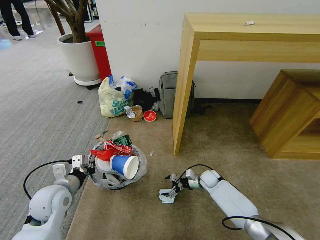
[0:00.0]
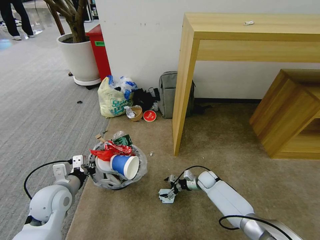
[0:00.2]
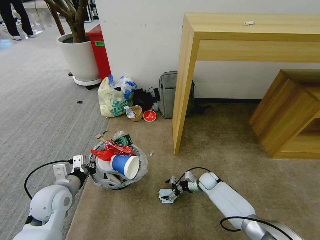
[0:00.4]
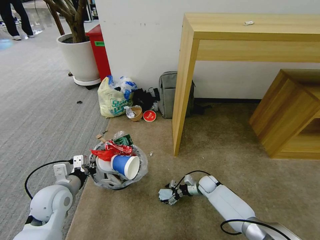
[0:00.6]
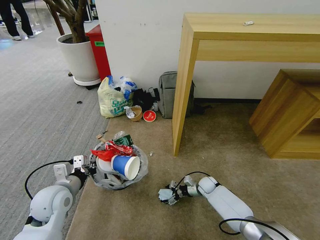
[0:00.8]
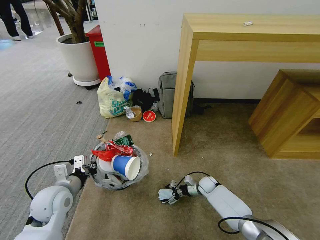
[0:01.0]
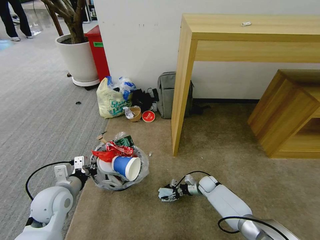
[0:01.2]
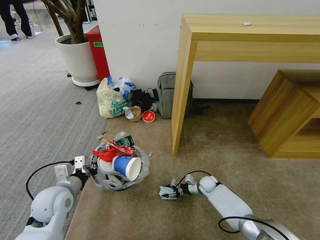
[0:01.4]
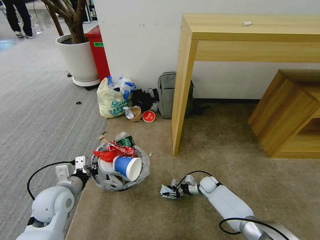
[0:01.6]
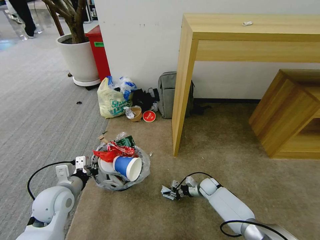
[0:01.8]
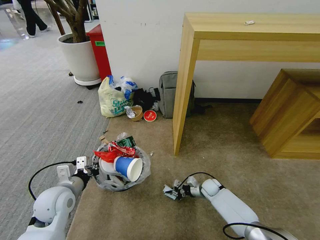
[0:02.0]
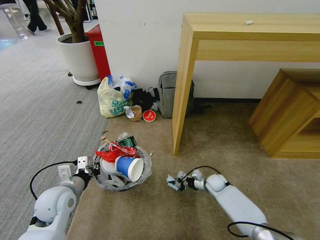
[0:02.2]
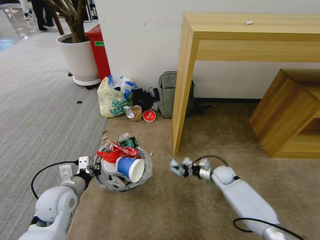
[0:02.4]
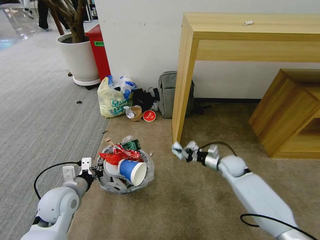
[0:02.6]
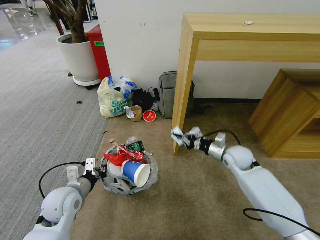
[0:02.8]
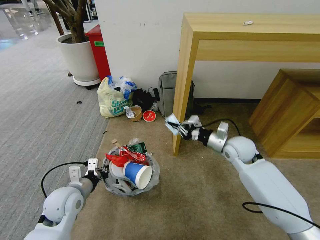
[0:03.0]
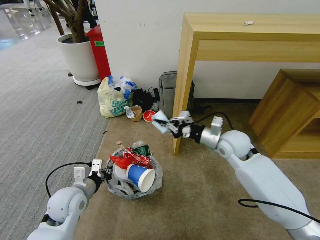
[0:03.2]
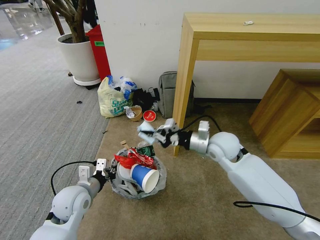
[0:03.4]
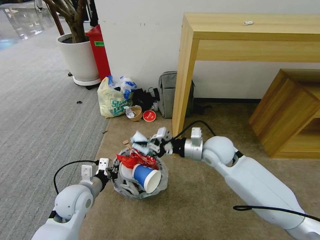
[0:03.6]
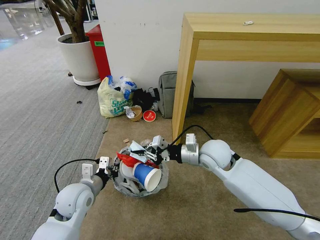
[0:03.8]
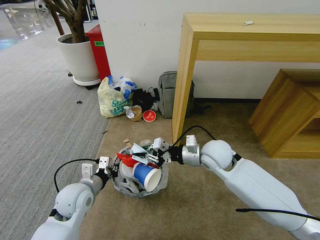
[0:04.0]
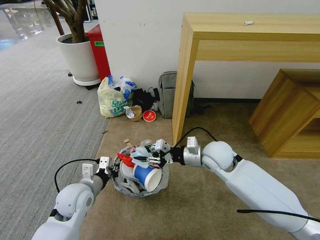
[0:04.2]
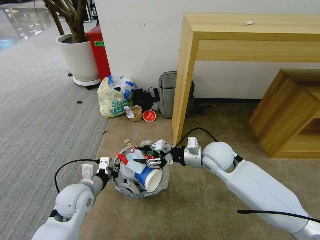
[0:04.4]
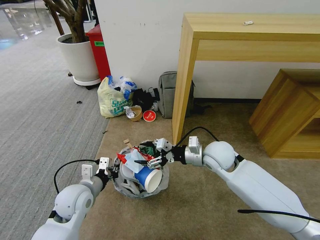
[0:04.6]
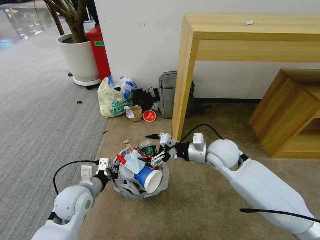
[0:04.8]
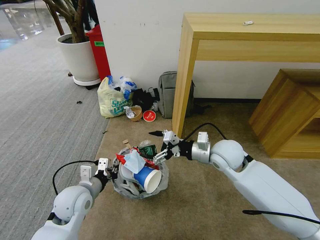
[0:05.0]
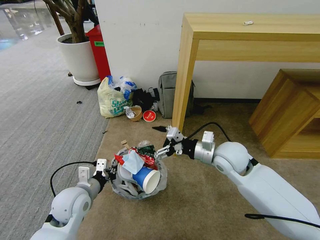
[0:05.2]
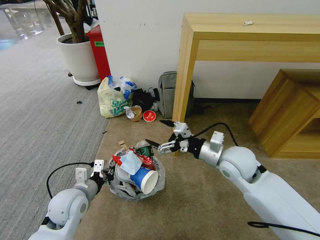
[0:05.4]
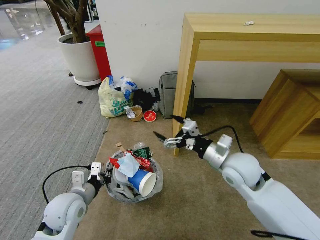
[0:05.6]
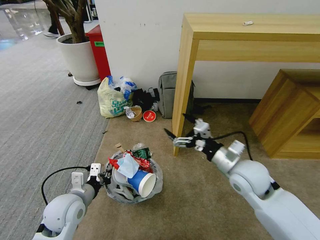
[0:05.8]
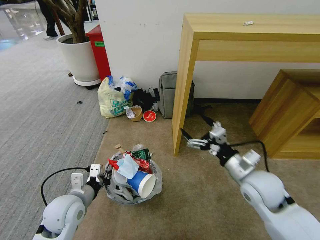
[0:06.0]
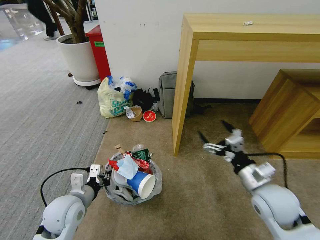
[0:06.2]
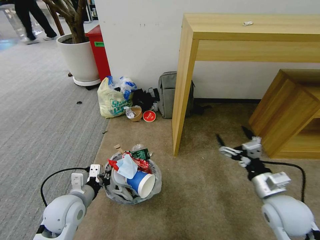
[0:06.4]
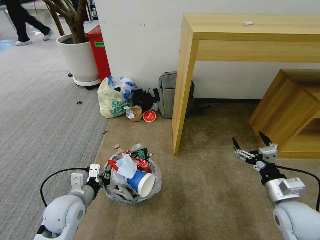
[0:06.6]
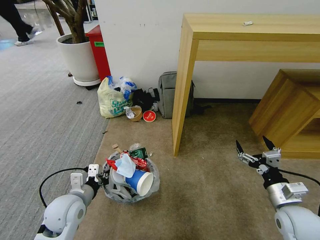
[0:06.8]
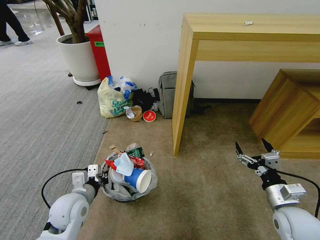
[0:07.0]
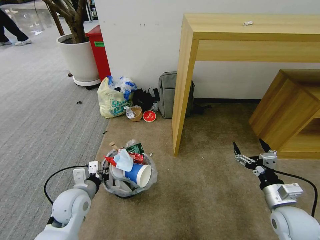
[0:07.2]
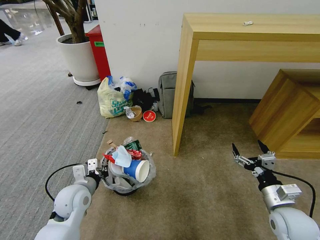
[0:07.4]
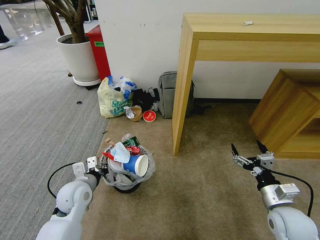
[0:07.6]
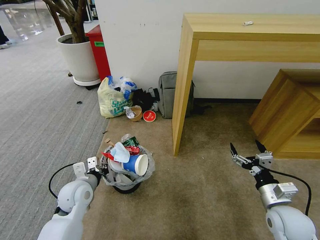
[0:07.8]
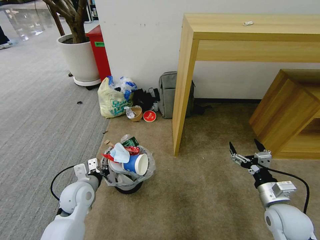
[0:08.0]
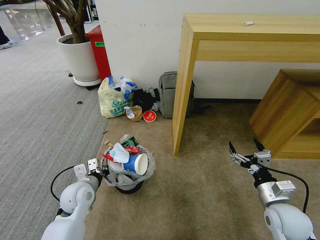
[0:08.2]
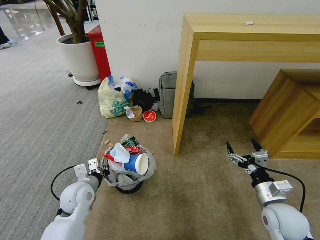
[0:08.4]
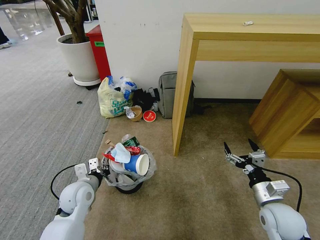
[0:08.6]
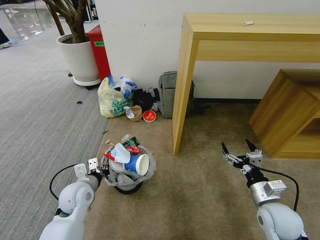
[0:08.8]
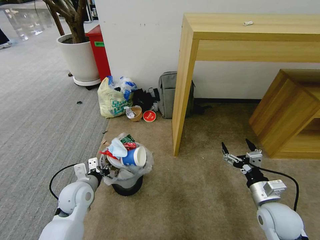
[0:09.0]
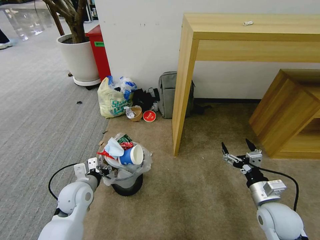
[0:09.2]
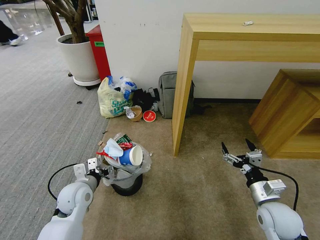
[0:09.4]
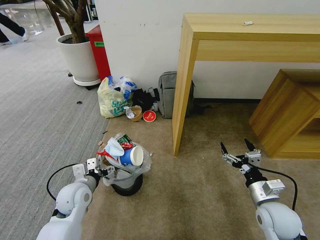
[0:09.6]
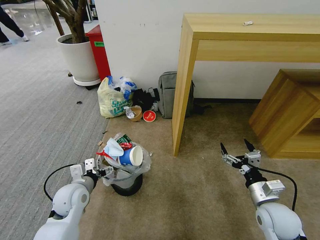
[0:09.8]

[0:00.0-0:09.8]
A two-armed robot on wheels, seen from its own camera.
Task of the whole recording: Pick up the trash bin and place the garbage on the floor into it.
0:00.0 to 0:01.4: The right gripper closes.
0:01.4 to 0:02.8: The right gripper shifts about 25 cm upward, and closes.
0:02.8 to 0:04.2: The right gripper shifts some 15 cm to the left and upward.
0:04.2 to 0:05.6: The right gripper travels backward by about 5 cm, and opens up.
0:05.6 to 0:07.0: The right gripper is displaced to the right, backward and downward by about 20 cm.
0:07.0 to 0:08.4: The grippers move only a little.
0:08.4 to 0:09.8: The left gripper opens its fingers.

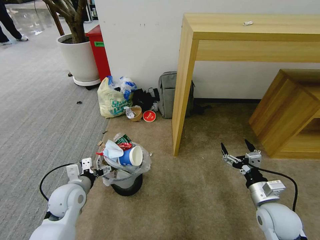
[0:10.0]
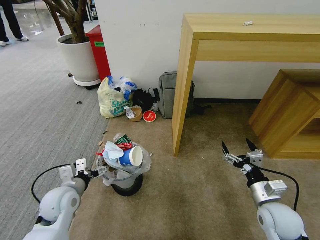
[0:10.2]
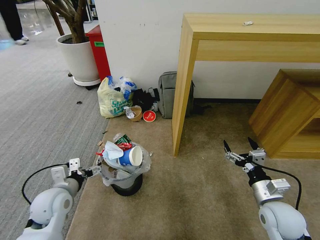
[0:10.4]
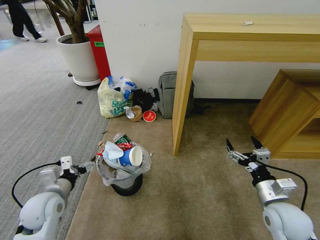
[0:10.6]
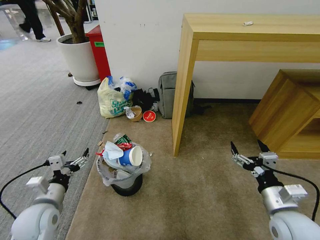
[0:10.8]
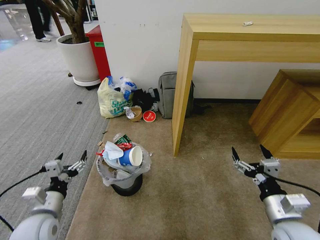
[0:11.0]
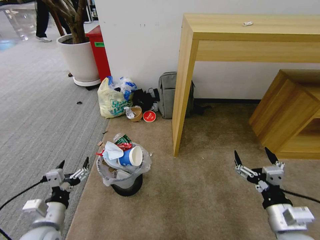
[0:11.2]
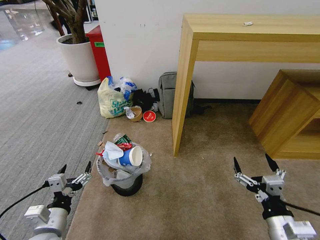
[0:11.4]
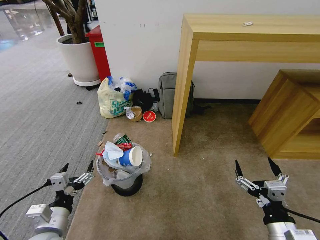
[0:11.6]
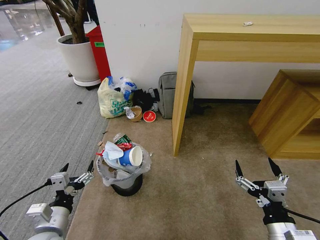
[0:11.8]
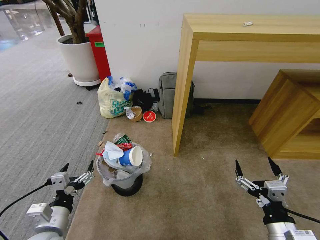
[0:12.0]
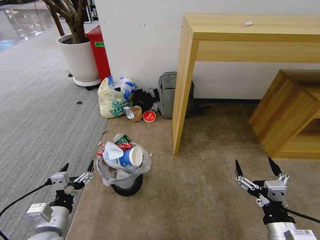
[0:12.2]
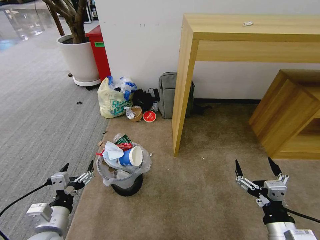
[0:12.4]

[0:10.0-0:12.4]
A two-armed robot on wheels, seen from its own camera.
Task of the whole recording: Pick up the trash bin and place the garbage on the floor into it.
0:10.0 to 0:11.2: The grippers both shift backward by roughly 10 cm.
0:11.2 to 0:12.4: There are only small adjustments of the grippers.

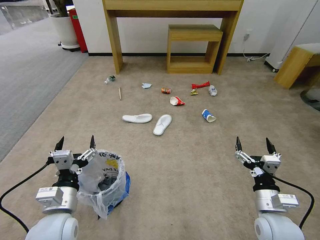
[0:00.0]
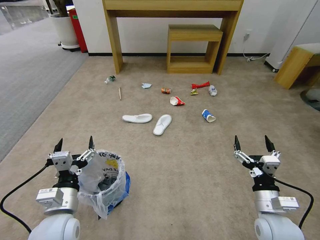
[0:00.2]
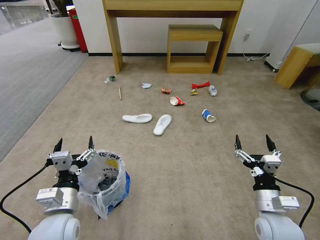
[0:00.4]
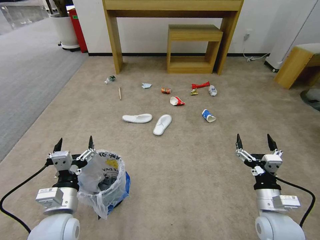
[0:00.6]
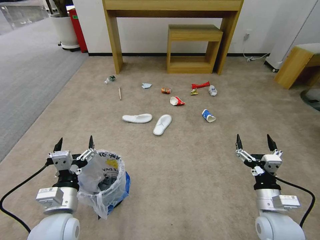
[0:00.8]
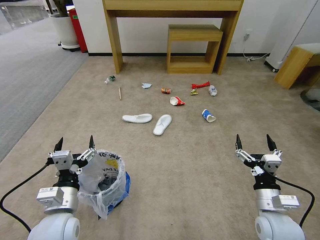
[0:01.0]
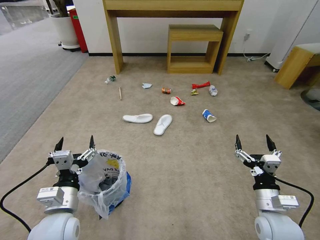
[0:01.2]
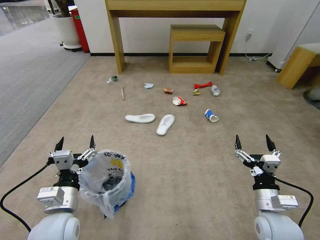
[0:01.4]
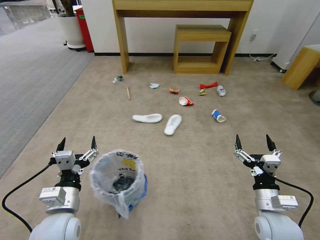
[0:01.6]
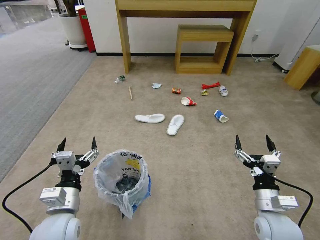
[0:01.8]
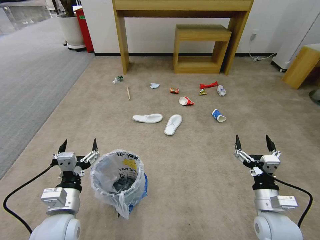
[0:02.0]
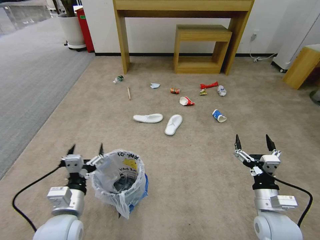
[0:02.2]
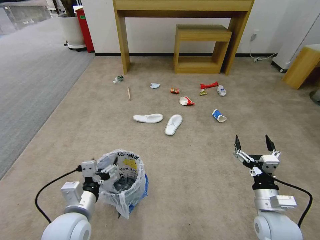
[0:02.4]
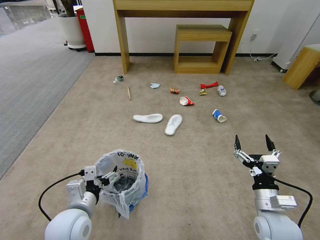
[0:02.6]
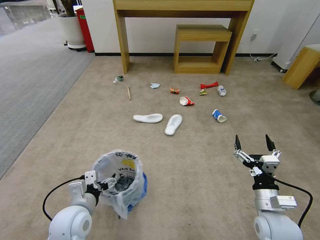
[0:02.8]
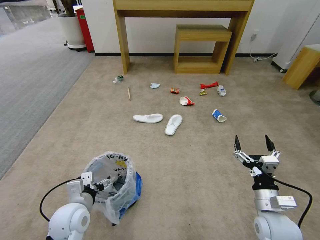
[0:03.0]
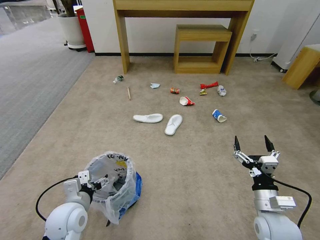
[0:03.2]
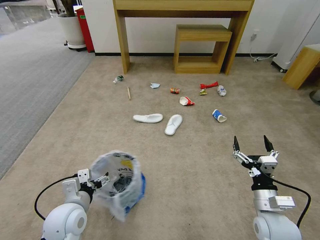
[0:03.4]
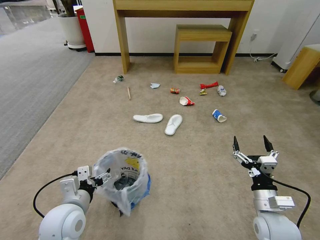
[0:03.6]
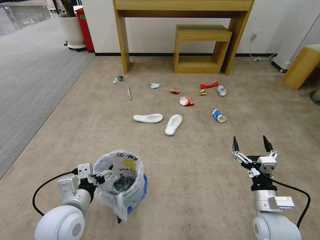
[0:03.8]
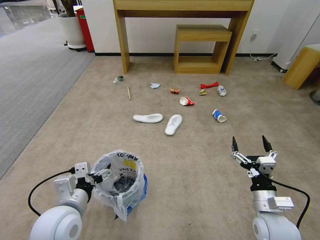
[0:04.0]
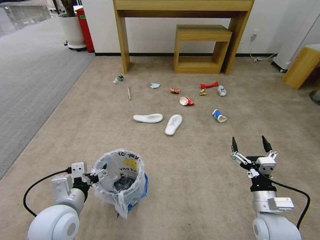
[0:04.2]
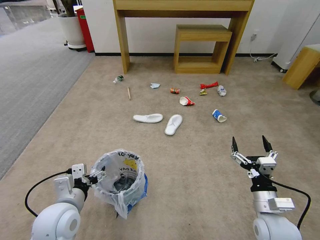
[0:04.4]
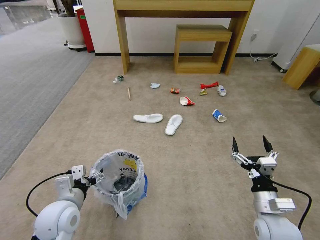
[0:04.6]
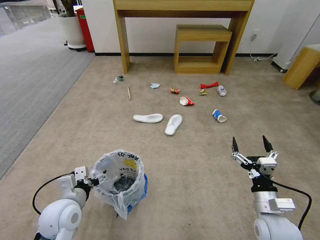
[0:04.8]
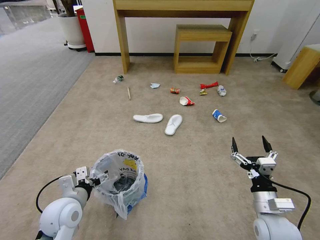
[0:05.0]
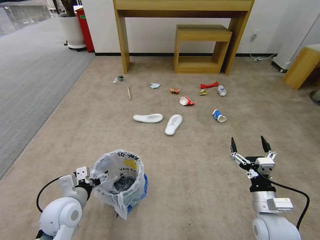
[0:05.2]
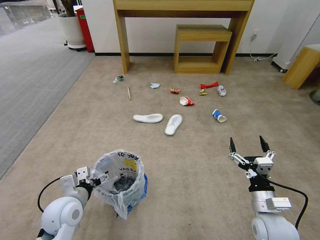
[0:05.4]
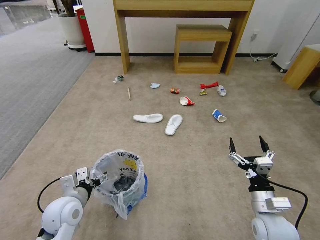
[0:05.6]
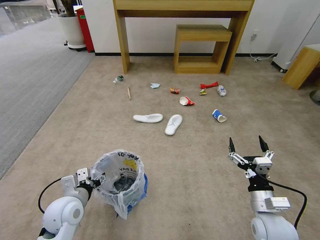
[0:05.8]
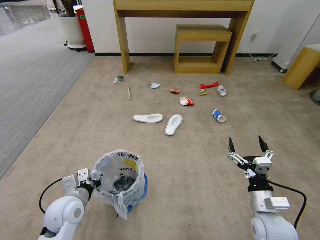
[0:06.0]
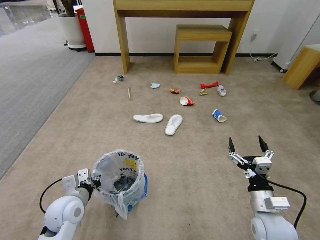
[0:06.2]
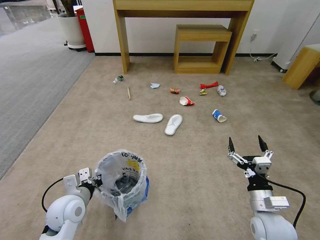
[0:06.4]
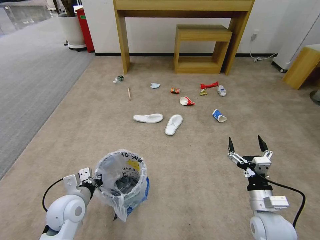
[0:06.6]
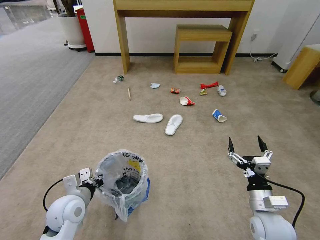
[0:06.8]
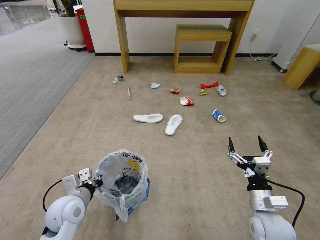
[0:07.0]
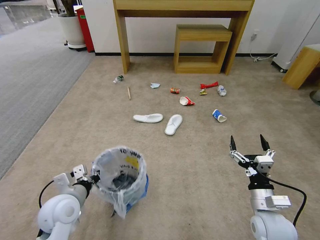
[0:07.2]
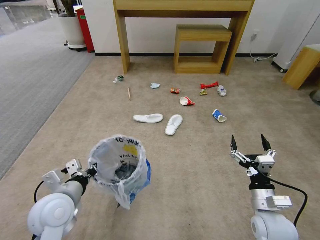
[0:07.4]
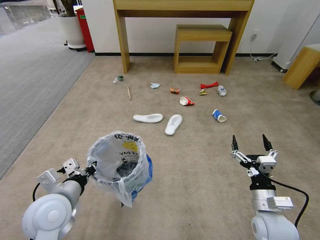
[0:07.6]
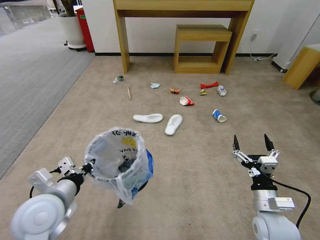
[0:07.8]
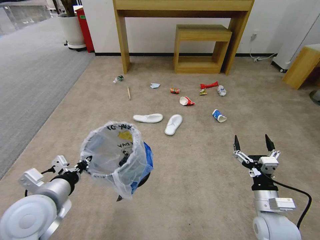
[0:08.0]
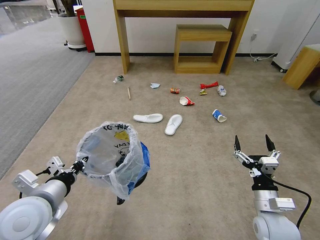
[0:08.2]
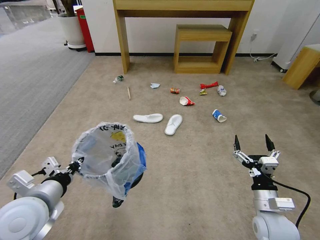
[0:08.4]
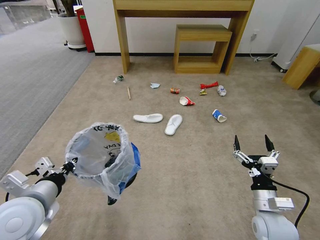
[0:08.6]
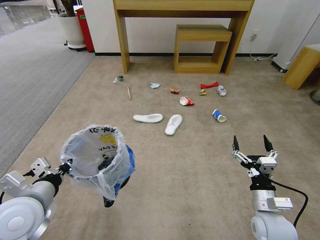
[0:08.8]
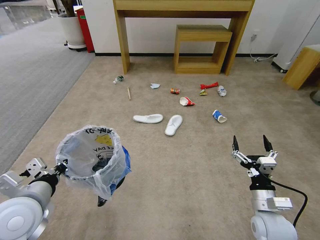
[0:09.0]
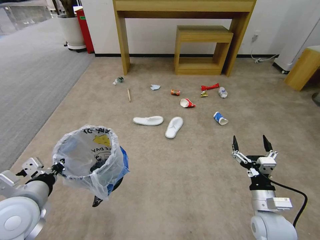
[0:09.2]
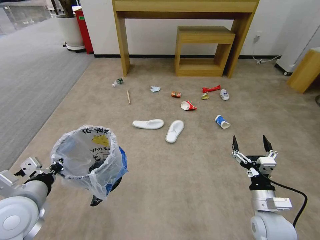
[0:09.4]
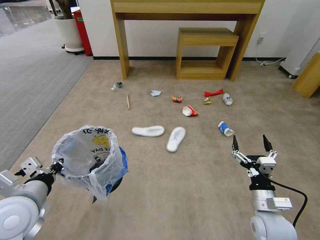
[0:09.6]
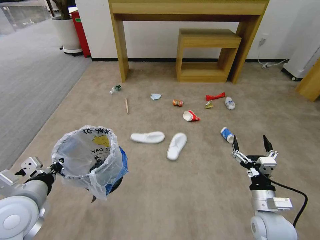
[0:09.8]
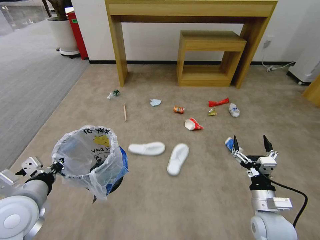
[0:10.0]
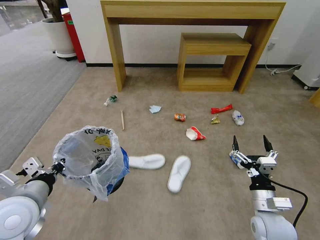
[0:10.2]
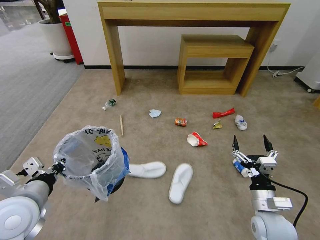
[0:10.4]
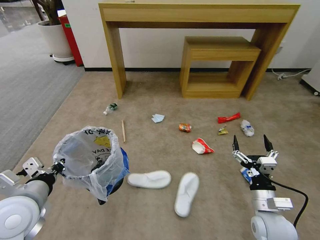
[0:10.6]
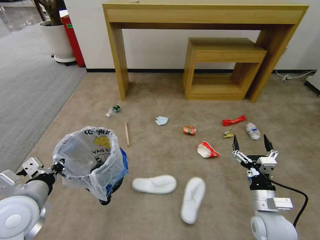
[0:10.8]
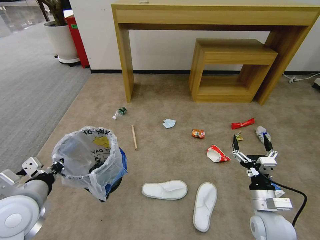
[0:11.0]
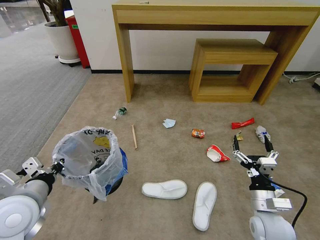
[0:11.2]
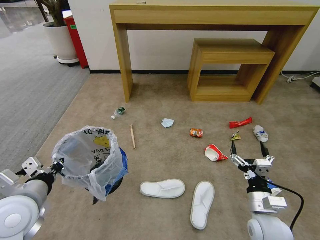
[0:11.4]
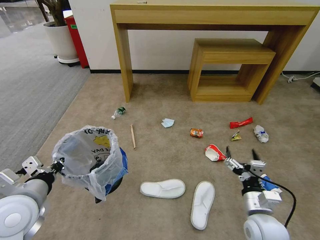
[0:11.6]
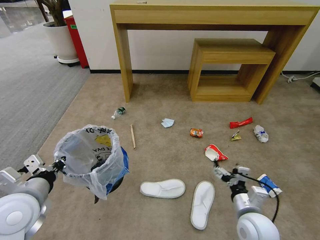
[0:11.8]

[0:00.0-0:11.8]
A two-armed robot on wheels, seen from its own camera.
Task of the whole recording: Pick up the trash bin and place the garbage on the floor into it.
0:01.4 to 0:03.0: The left gripper is displaced downward by some 5 cm.
0:03.0 to 0:04.4: The left gripper goes approximately 5 cm upward.
0:04.4 to 0:06.0: The left gripper is displaced downward by some 5 cm, and closes.
0:06.0 to 0:07.4: The left gripper is displaced upward by roughly 5 cm, and closes its fingers.
0:07.4 to 0:08.8: The left gripper heads upward, covering approximately 5 cm.
